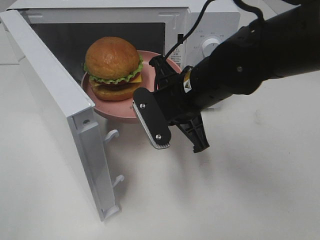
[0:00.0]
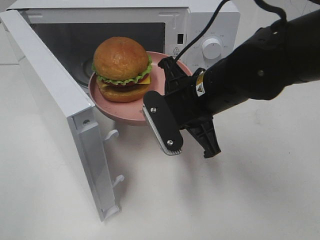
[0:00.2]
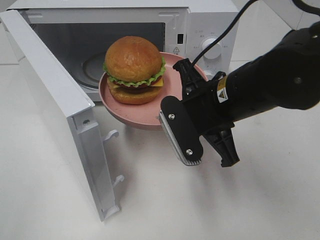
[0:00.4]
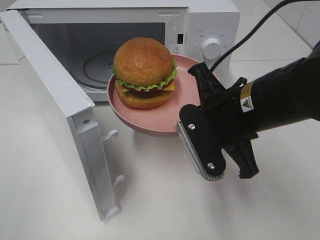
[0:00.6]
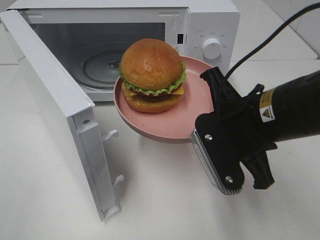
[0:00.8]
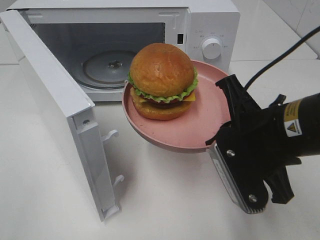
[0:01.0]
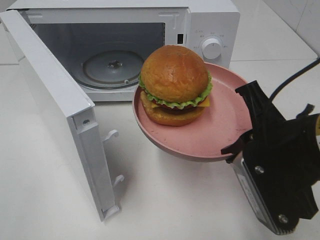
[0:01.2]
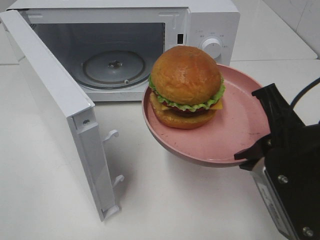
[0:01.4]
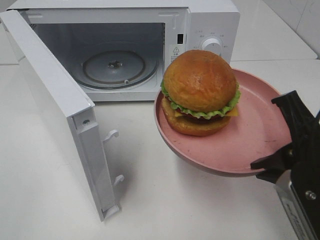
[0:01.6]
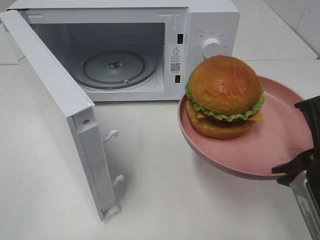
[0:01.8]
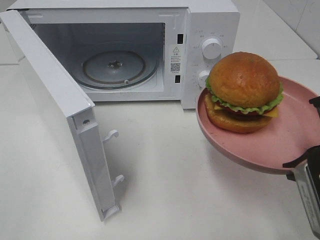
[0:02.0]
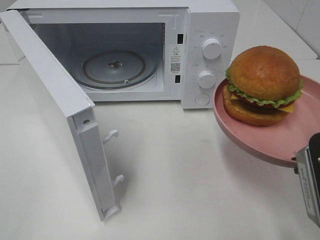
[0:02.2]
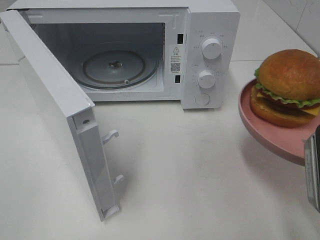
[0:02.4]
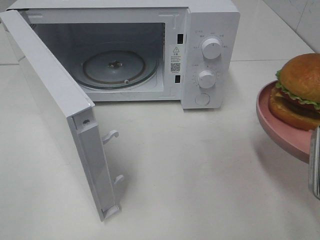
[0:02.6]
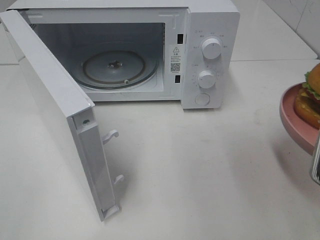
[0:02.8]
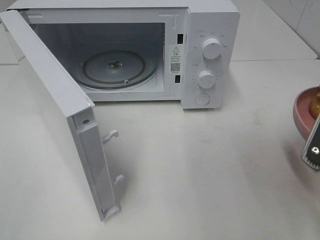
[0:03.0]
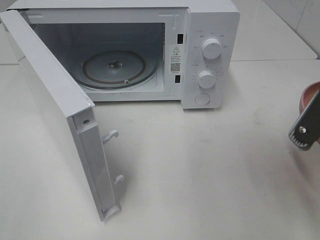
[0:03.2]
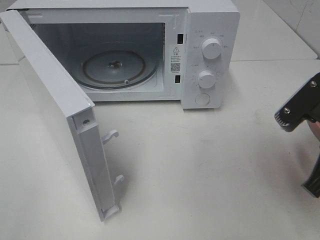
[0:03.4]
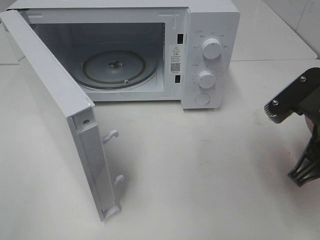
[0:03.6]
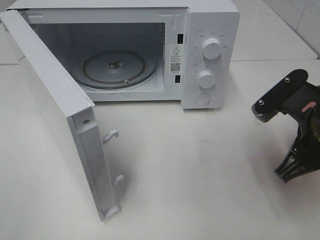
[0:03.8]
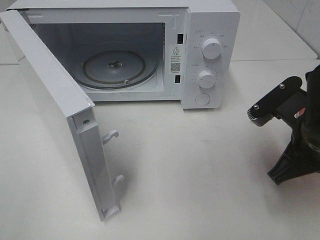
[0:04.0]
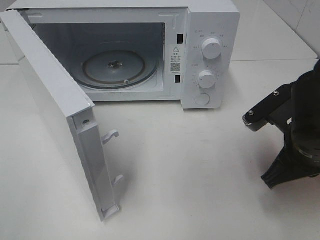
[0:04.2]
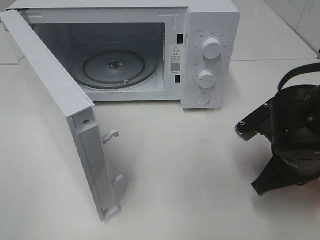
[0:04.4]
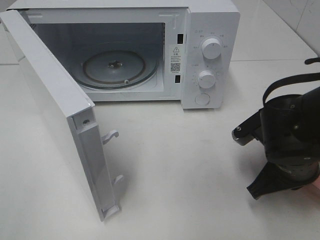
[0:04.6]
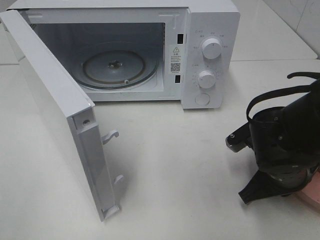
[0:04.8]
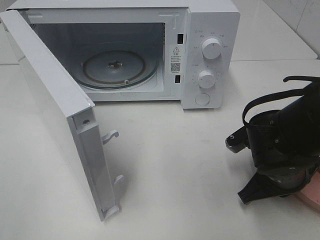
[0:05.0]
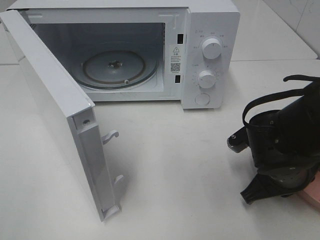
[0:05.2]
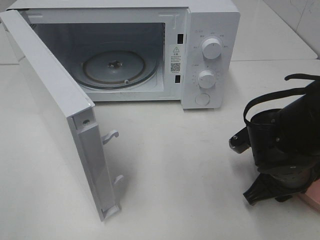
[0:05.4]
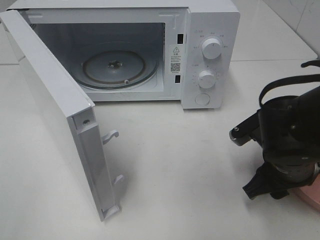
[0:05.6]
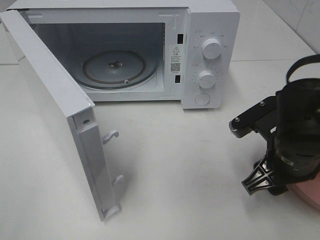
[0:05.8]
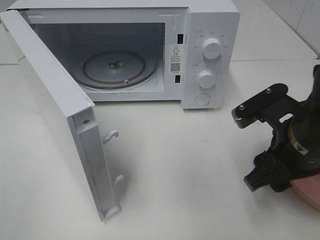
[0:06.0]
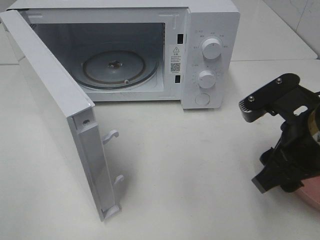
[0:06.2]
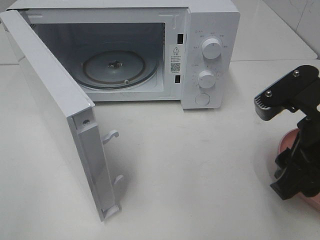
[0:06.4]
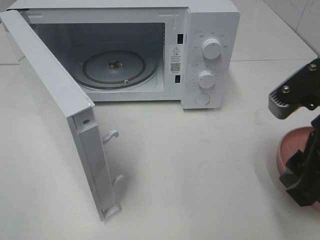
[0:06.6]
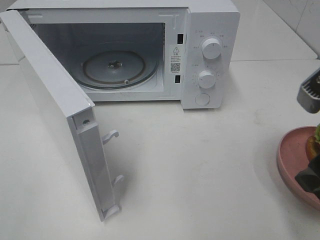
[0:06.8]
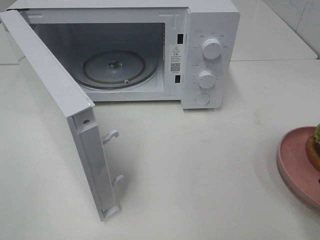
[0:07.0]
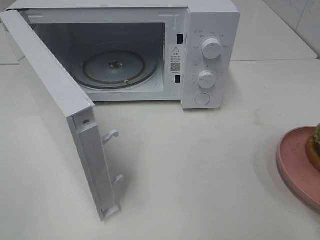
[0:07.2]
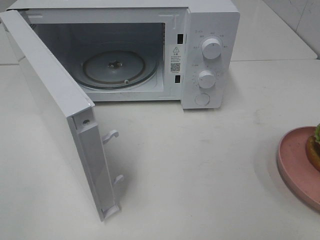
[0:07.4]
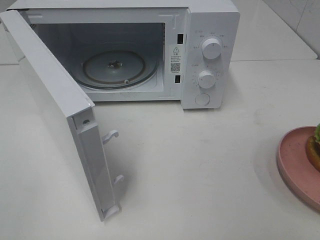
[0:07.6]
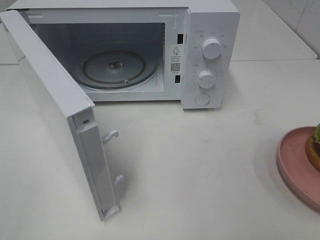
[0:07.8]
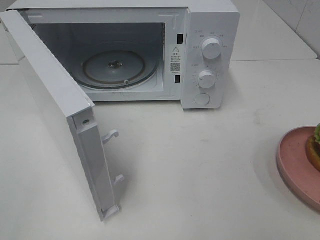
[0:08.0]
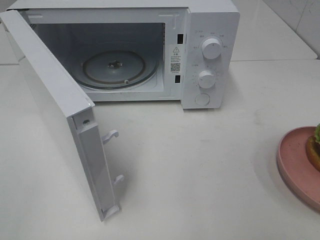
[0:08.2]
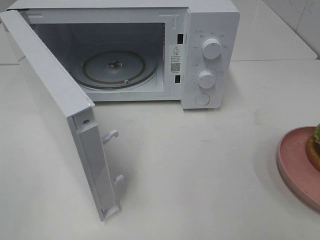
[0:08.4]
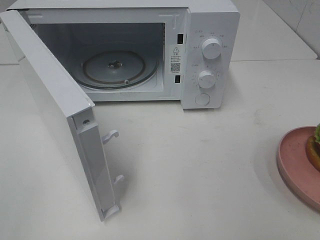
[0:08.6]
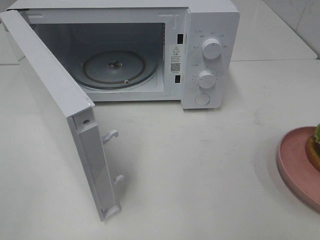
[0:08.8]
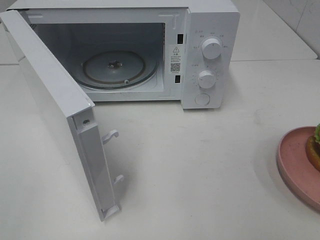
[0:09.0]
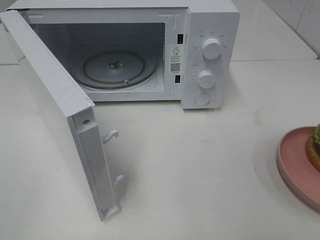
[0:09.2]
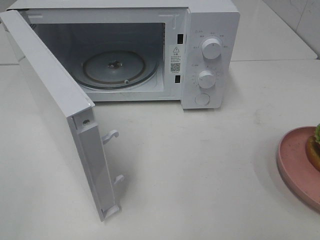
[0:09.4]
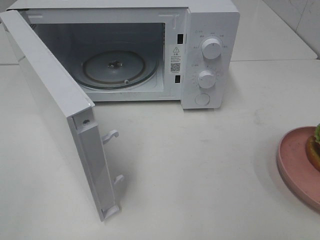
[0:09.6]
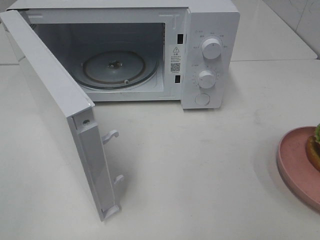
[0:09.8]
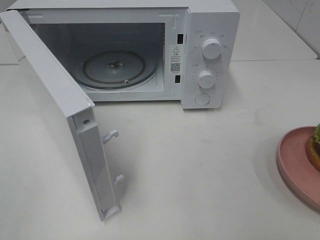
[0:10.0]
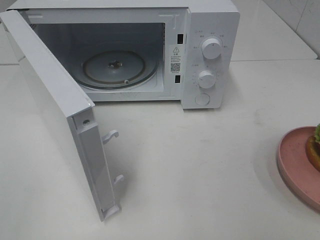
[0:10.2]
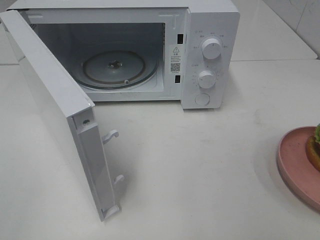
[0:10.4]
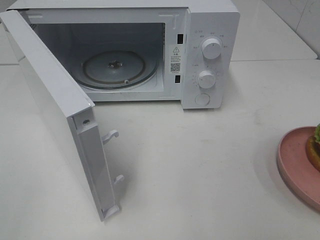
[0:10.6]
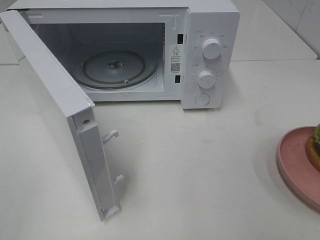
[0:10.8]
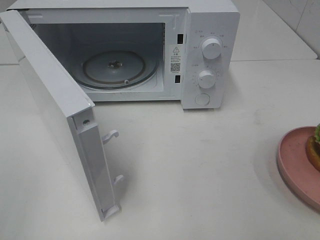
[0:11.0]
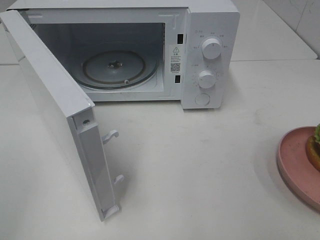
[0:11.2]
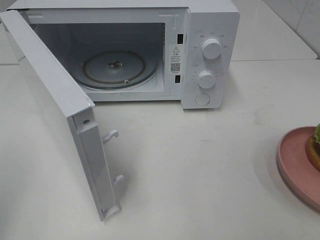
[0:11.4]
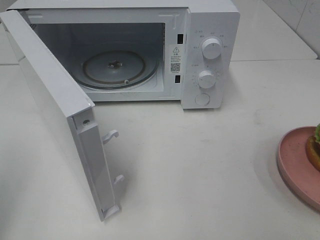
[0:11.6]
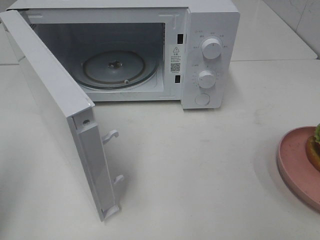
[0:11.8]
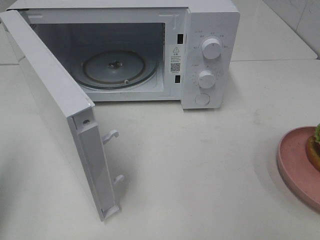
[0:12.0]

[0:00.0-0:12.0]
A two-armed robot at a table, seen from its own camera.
Task of the whole recording: Heat the burger.
Step, 0:00.0 to 0:05.6: Right hand: place the plate on the table.
0:00.0 to 0:01.6: The right gripper travels backward and to the right by some 20 cm.
0:03.0 to 0:04.4: The right gripper is displaced downward, forward and to the left by approximately 10 cm.
0:04.4 to 0:06.0: The right gripper opens up.
0:06.0 to 0:07.6: The right gripper is displaced backward, upward and to the right by roughly 20 cm.
0:09.0 to 0:10.4: The two grippers keep their place.
0:10.4 to 0:12.0: The left gripper is displaced forward by approximately 15 cm, and closes up.

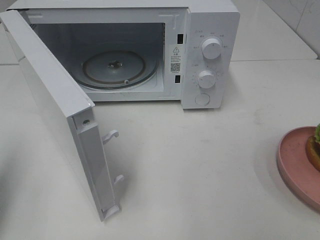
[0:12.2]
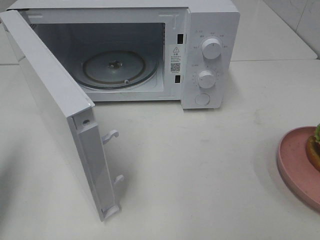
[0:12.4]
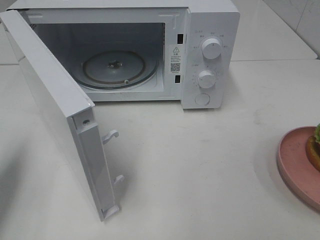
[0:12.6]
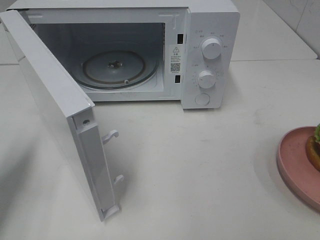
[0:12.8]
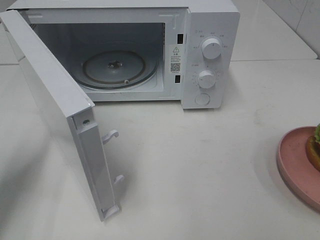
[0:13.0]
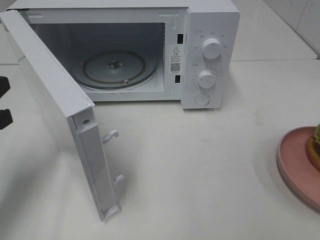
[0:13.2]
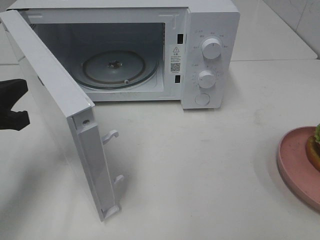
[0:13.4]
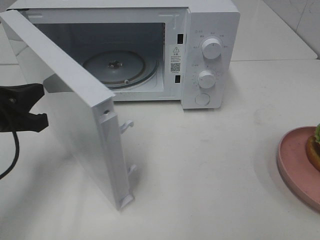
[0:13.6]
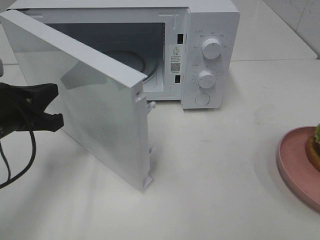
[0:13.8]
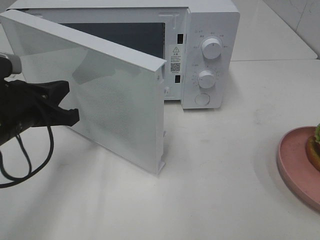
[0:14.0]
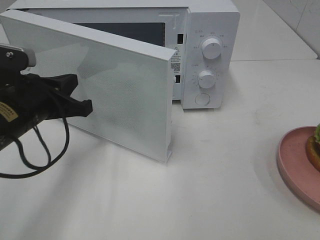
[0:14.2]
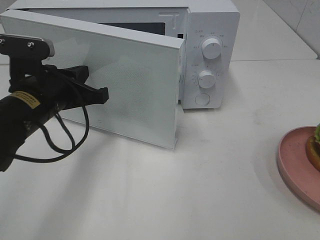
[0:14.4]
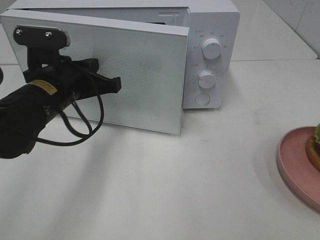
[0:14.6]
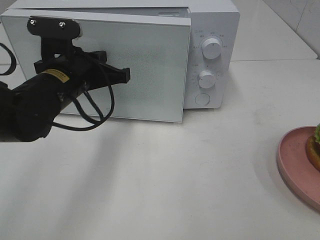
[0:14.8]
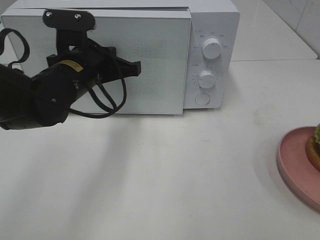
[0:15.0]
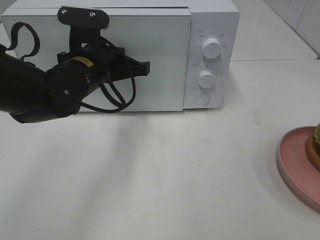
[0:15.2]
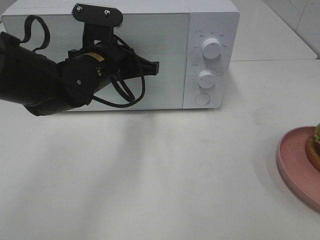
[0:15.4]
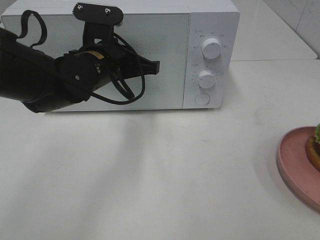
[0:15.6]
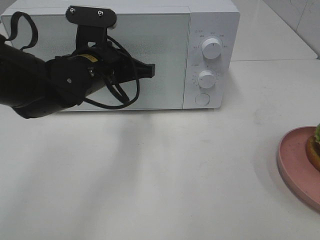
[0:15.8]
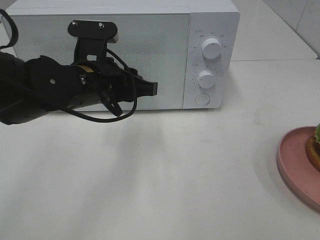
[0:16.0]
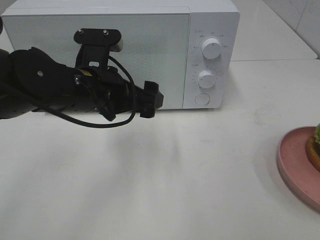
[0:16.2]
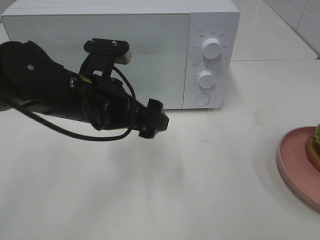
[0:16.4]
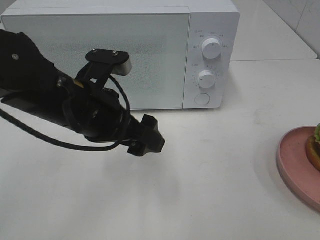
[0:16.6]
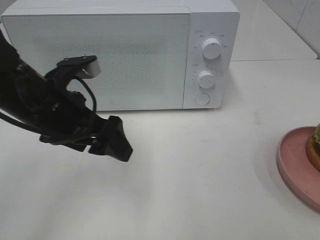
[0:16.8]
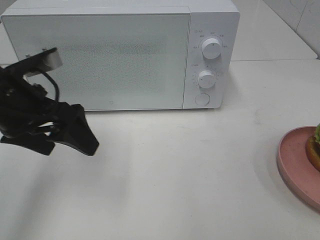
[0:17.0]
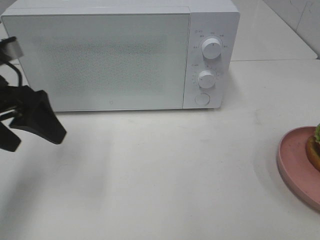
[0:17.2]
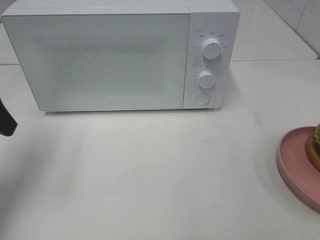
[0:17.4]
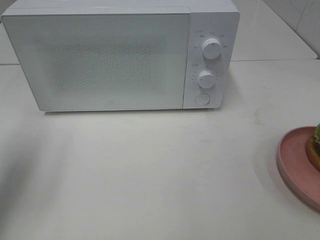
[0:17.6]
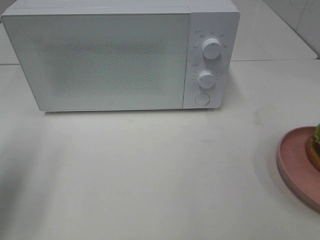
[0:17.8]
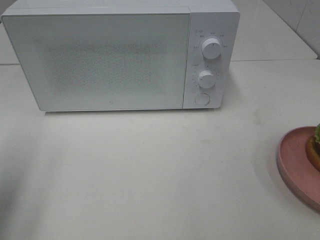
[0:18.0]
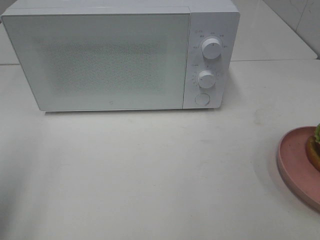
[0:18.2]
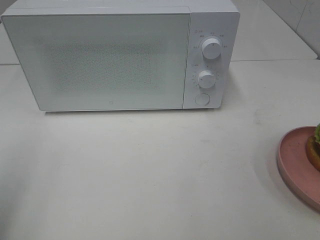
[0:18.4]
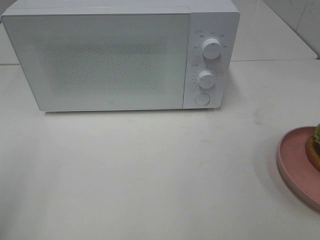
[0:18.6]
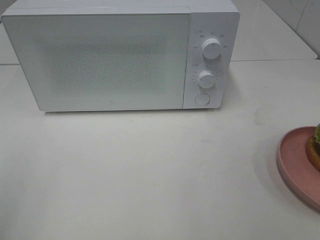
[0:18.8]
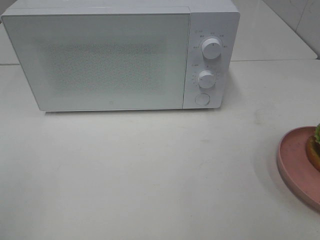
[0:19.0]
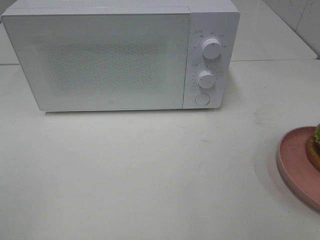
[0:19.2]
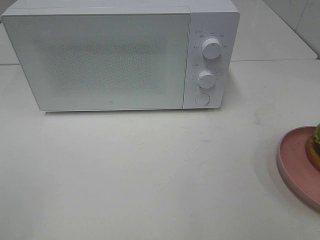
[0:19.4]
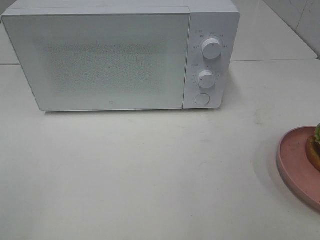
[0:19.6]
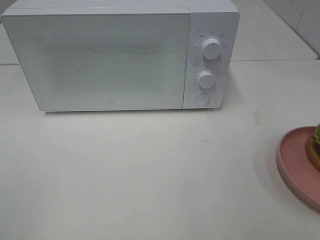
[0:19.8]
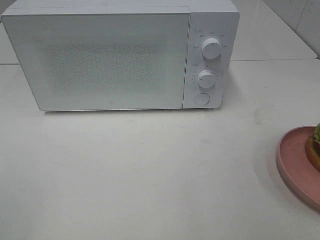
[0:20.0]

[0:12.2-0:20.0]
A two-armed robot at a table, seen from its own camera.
Task of the whole recording: Heat the burger.
Step, 0:12.2 to 0:16.0: Left hand: close the microwave door.
0:12.2 to 0:13.8: The left gripper shifts about 15 cm to the right, forward and downward.
0:13.8 to 0:15.4: The left gripper moves to the right and forward, roughly 15 cm.
0:15.4 to 0:16.8: The left gripper travels backward and to the left by approximately 10 cm, and opens its fingers.
0:16.8 to 0:18.4: The left gripper heads to the left, backward and upward, covering some 25 cm.

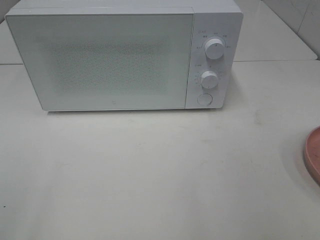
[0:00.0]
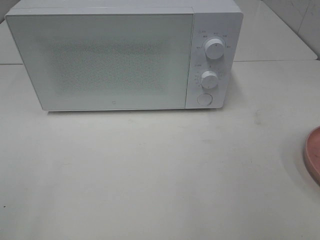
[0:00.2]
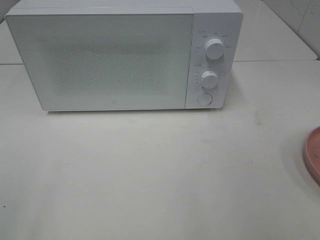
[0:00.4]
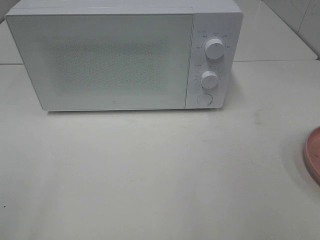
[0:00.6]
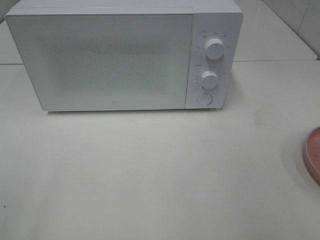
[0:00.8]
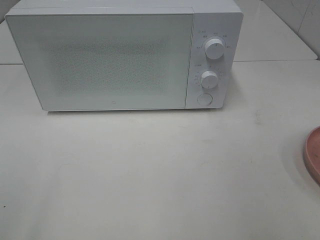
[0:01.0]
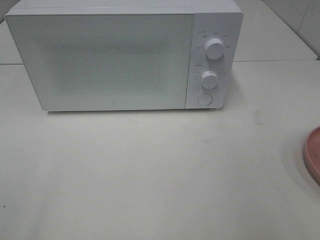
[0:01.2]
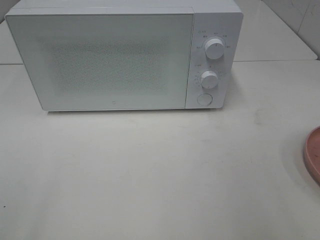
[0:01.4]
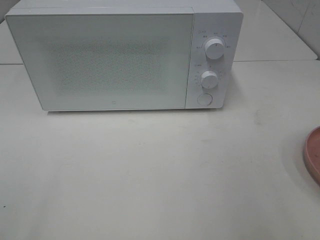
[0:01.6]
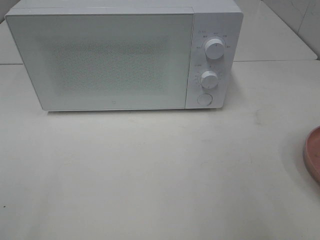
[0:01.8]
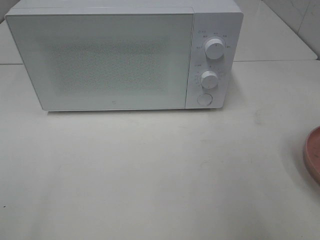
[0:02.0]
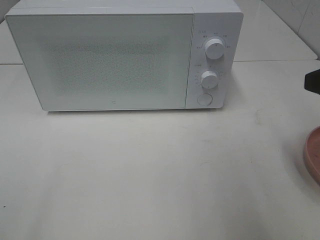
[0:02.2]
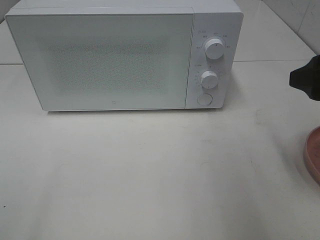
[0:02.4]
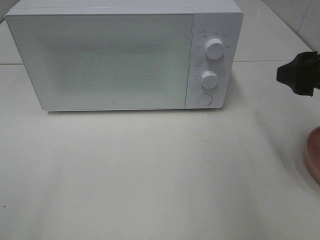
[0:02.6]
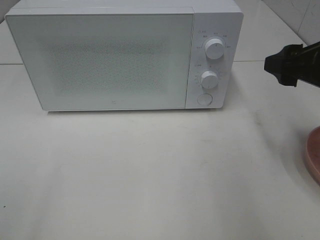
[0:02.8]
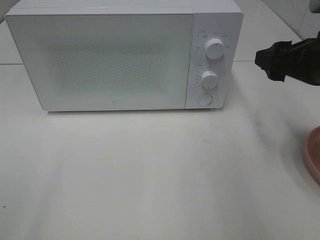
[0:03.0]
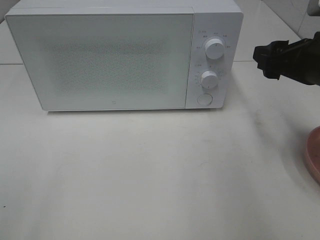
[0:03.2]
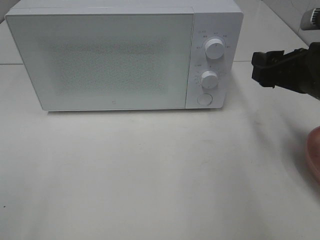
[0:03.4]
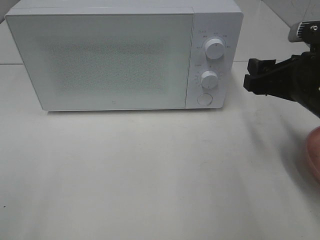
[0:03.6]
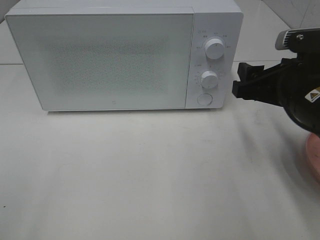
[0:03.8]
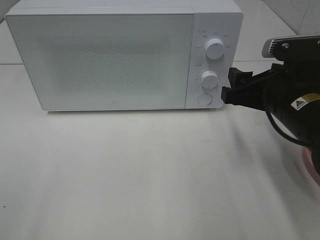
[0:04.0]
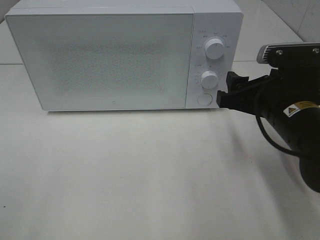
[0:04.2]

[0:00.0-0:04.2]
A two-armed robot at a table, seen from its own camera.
Task of the whole recording: Heat the burger.
0:01.4 to 0:02.8: The right gripper travels forward by roughly 15 cm.
0:02.8 to 0:04.2: The right gripper travels downward and to the left by some 10 cm.
